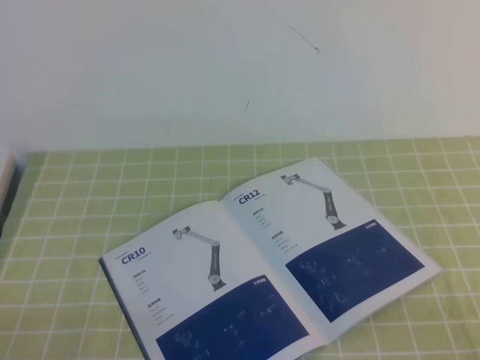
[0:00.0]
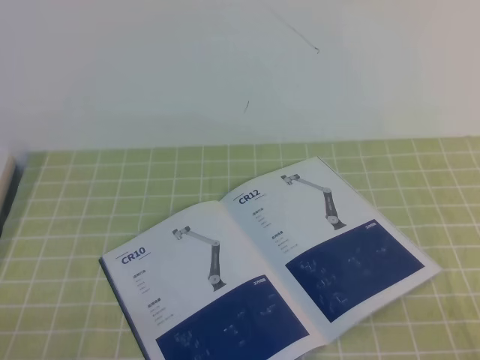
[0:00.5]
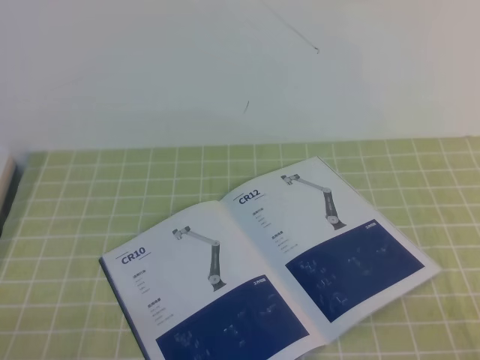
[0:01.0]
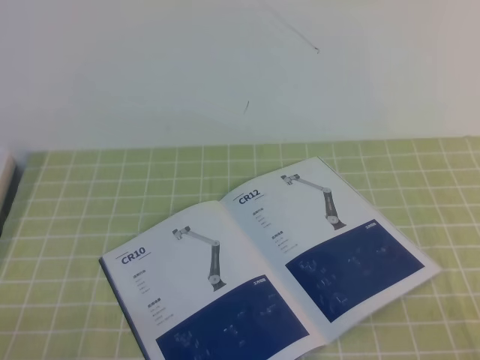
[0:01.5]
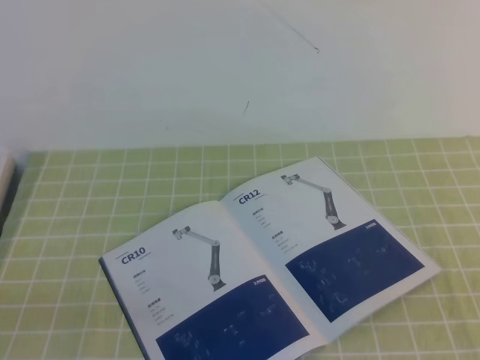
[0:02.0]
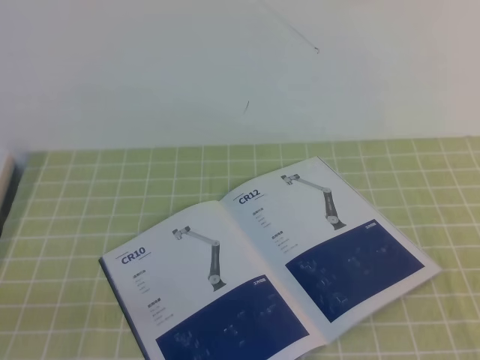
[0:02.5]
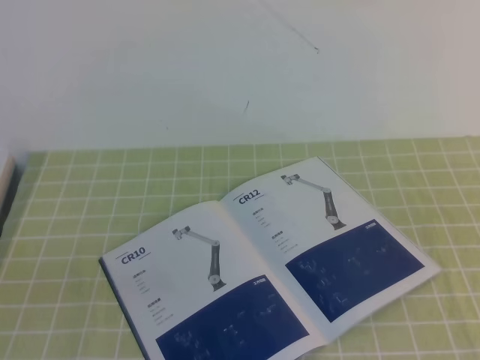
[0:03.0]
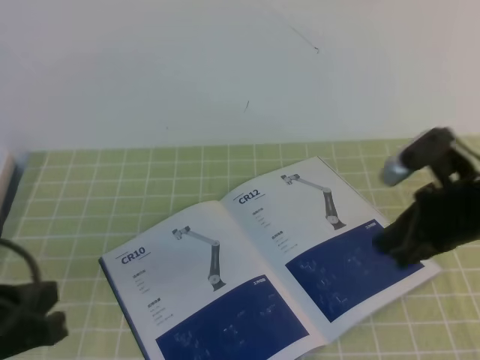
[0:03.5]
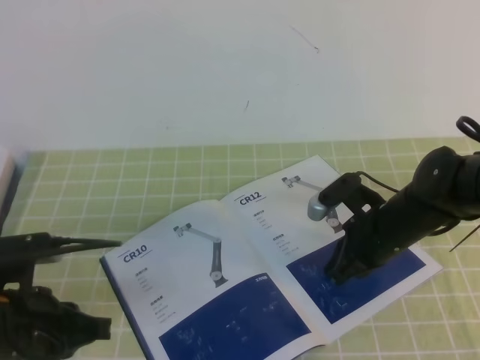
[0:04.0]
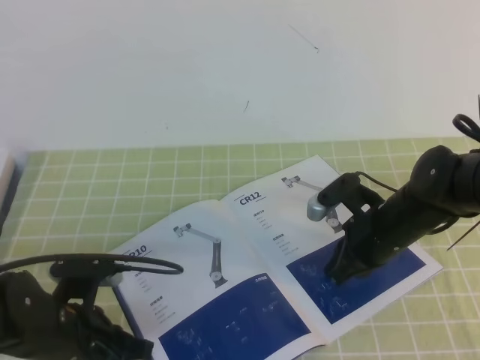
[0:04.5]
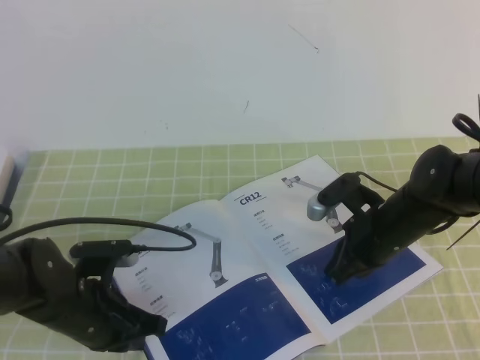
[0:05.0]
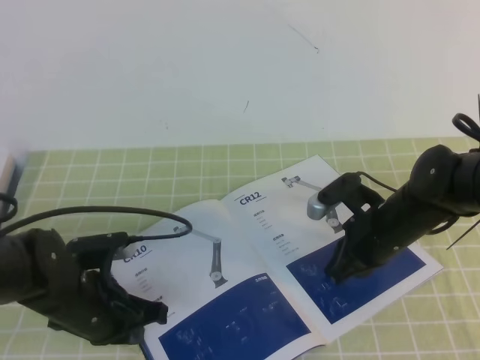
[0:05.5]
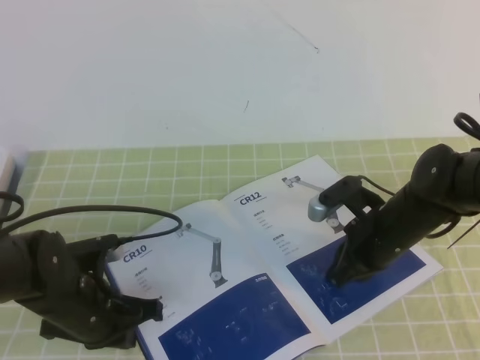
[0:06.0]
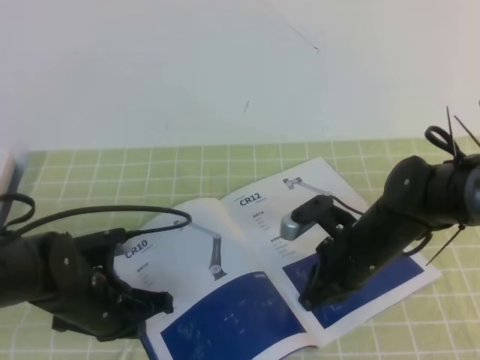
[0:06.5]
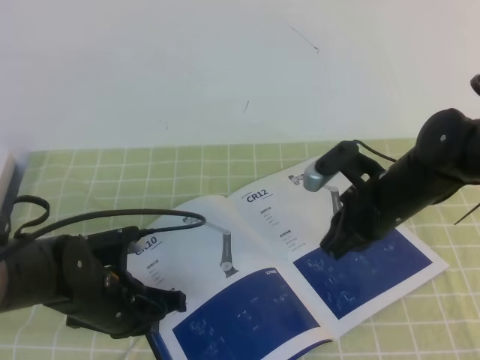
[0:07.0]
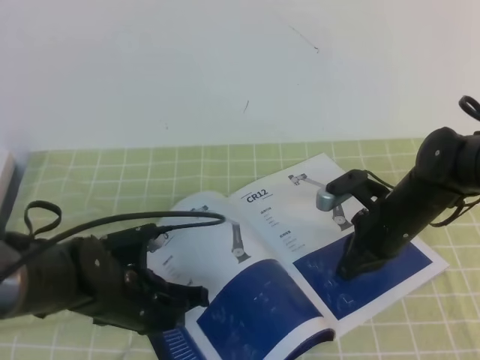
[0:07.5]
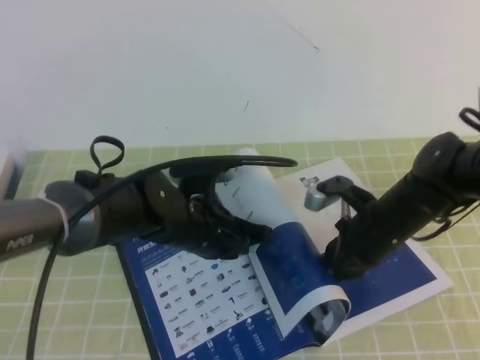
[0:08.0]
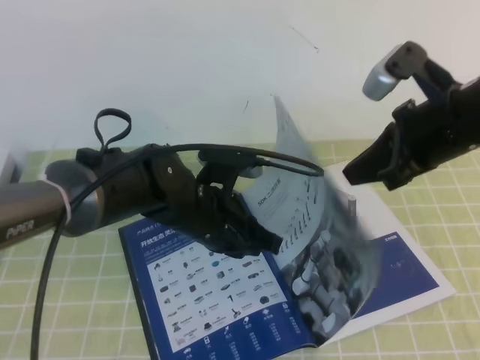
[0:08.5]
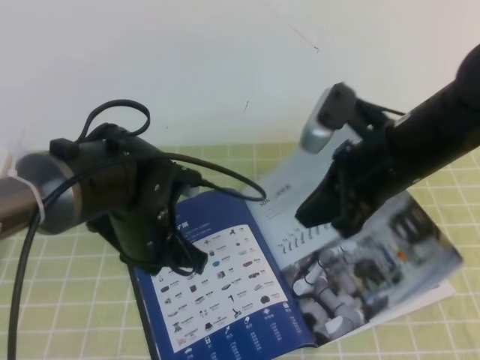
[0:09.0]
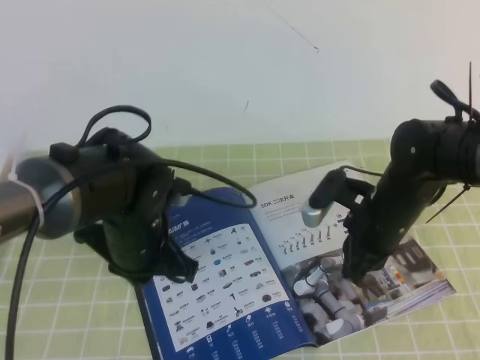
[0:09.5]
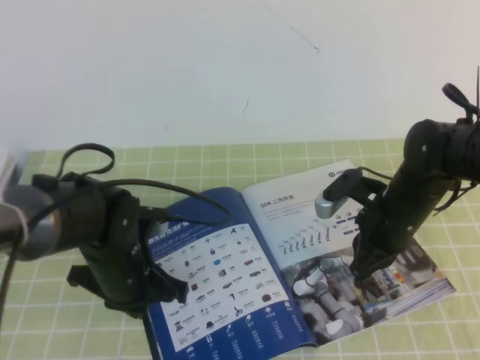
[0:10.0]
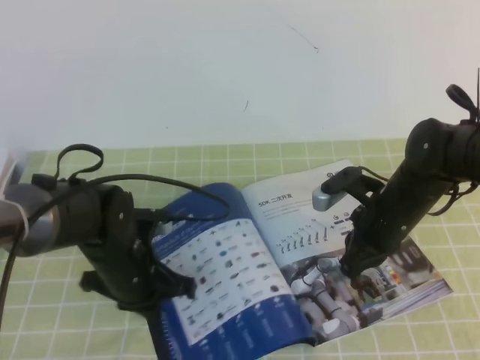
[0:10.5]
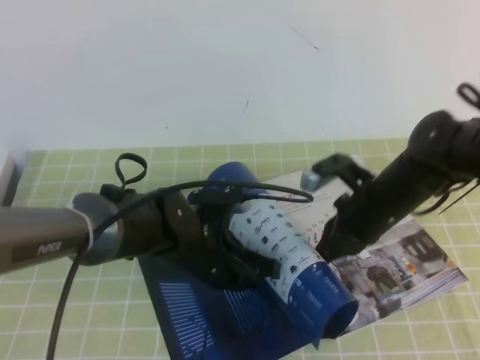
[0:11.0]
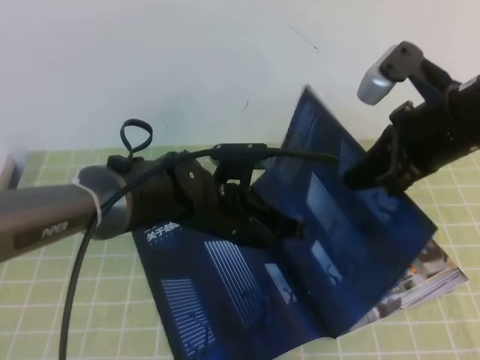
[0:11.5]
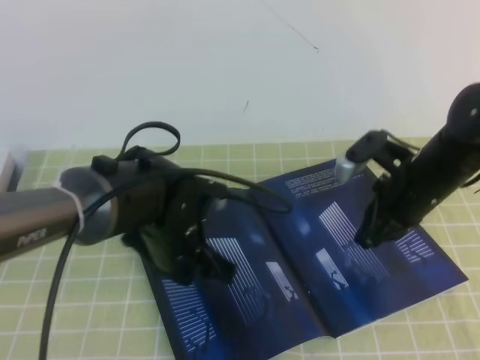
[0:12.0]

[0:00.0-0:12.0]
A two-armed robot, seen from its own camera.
Task of the whole recording: on the green tablecloth, hold the book with one hand and close it with the other.
0:02.0 to 0:04.0: The left gripper heads forward, covering some 15 cm; the right gripper moves forward and to the left, some 35 cm.
0:04.0 to 0:06.0: The left gripper heads downward and forward, covering some 10 cm.
0:06.0 to 0:08.0: The left gripper heads to the right, covering approximately 10 cm.
0:08.0 to 0:10.0: The left gripper travels to the left by about 10 cm. The right gripper reaches approximately 15 cm upward, then returns.
0:10.0 to 0:12.0: The right gripper moves upward, roughly 5 cm. The left gripper is displaced to the right by approximately 10 cm.

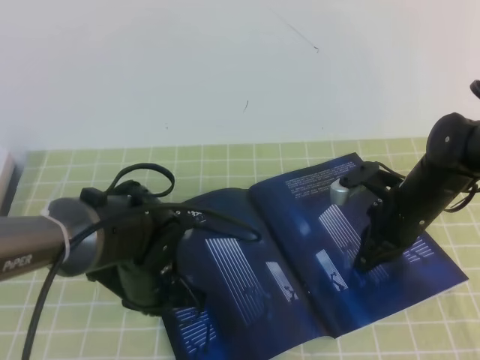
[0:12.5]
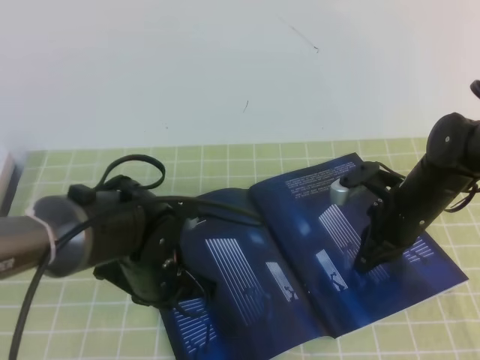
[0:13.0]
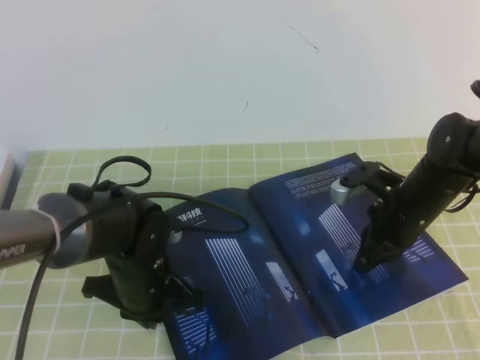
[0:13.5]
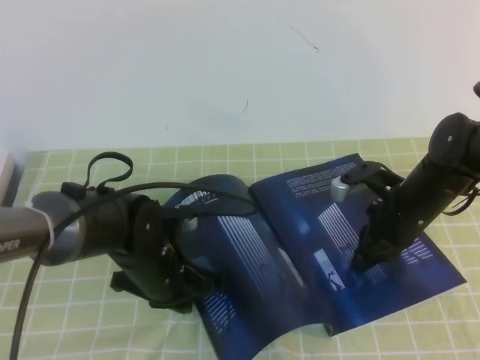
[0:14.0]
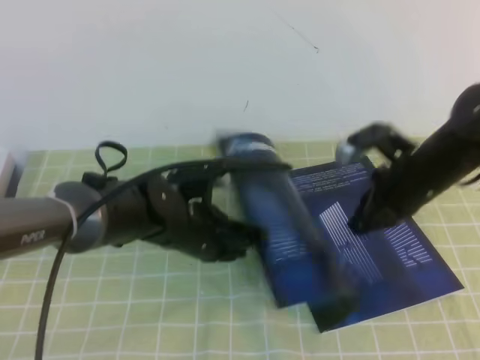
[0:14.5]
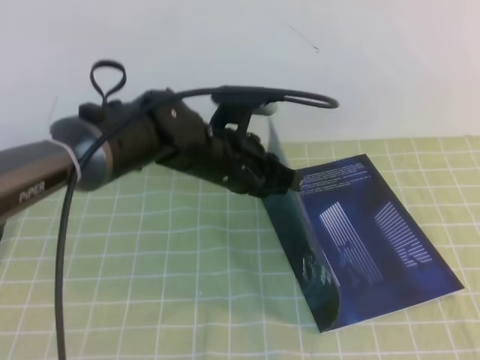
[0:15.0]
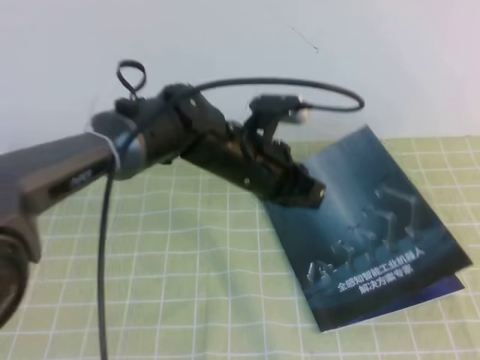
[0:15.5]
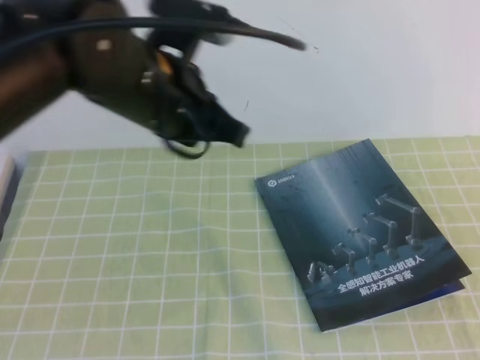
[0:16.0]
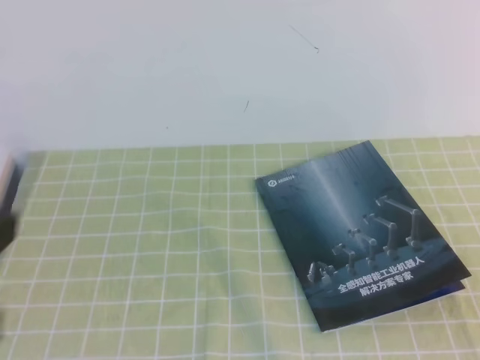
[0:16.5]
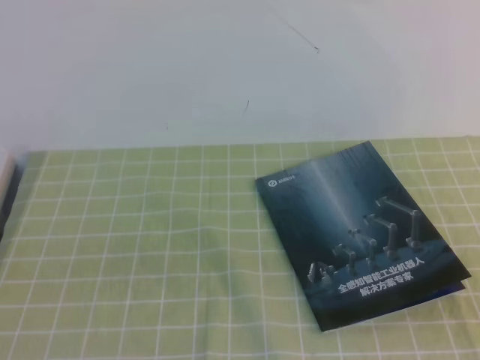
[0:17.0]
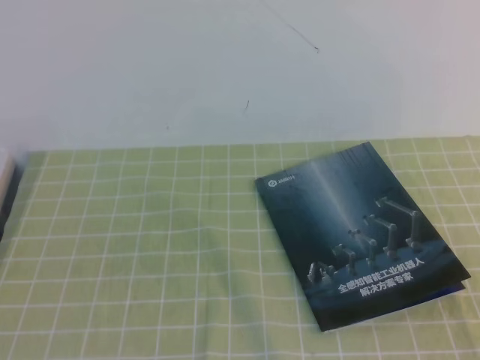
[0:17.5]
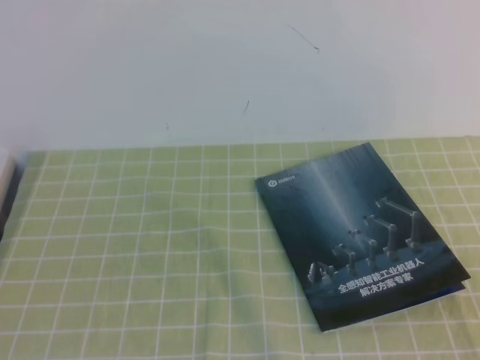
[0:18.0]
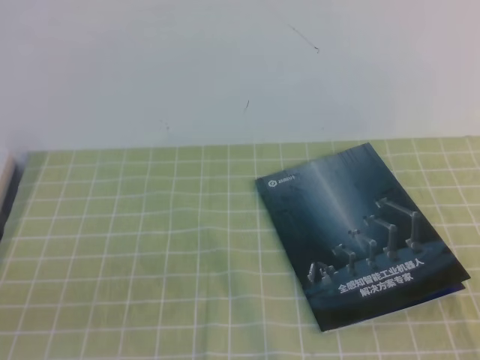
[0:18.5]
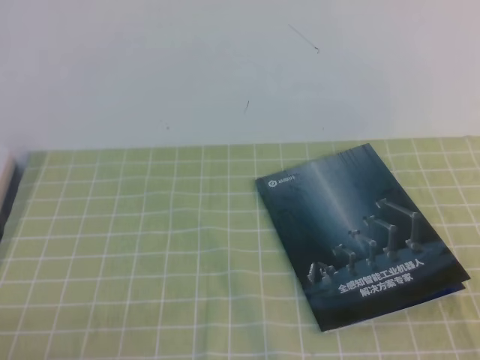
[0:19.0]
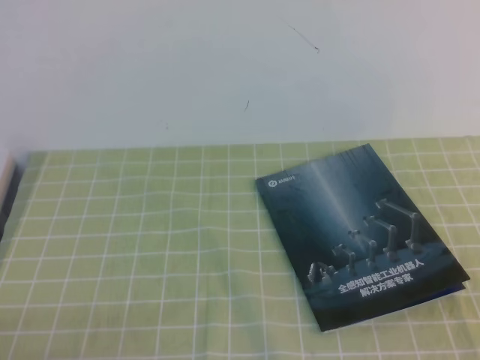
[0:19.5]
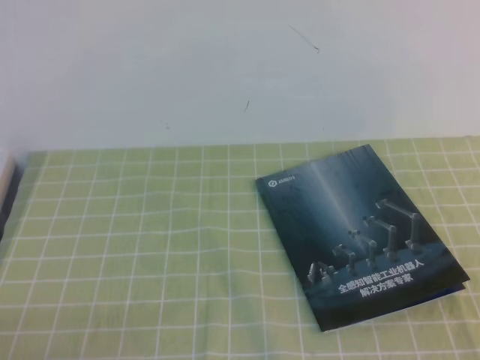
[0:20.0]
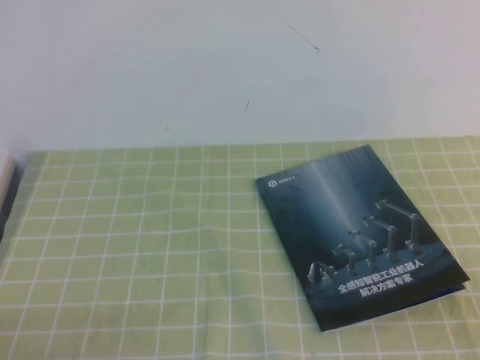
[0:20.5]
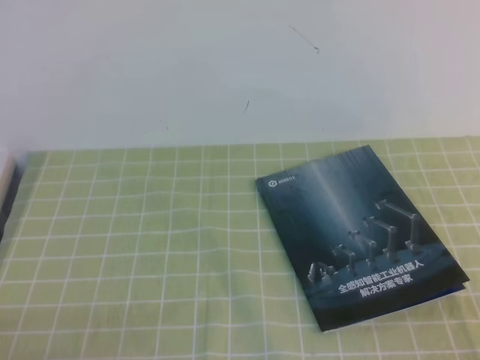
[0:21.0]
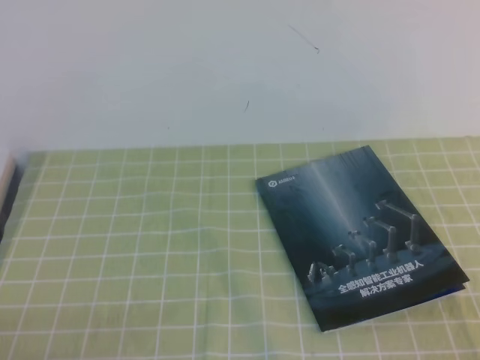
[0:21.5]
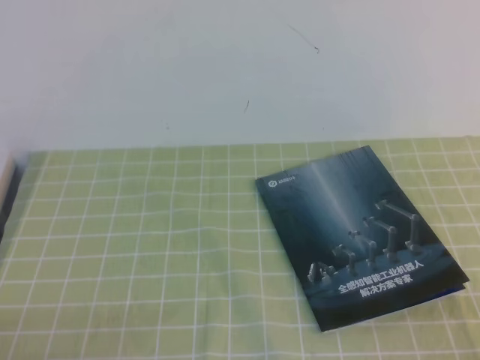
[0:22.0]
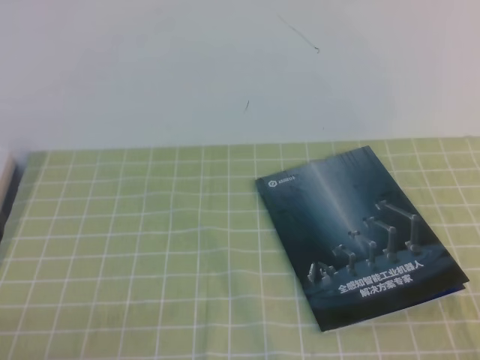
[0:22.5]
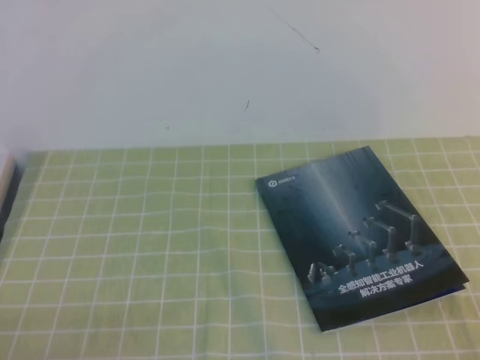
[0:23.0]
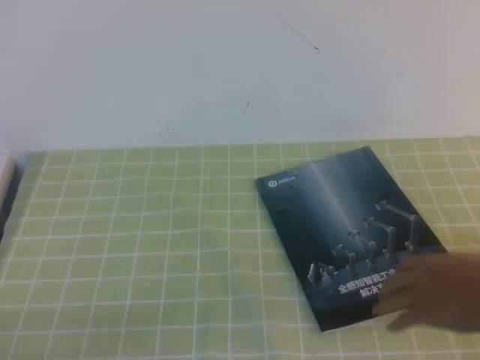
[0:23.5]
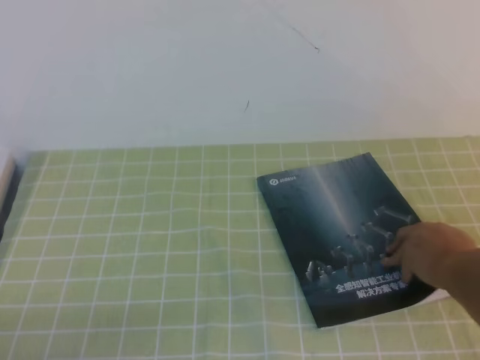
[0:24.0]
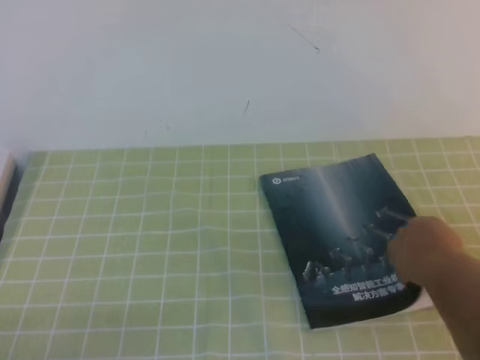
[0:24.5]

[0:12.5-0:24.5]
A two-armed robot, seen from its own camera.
Task of the whole recording: on the green tablecloth, hold the book with one hand and close it with the other.
Step, 0:12.5 to 0:24.5: Close the open book.
0:12.5 to 0:14.5: The right gripper travels upward by roughly 5 cm; the left gripper changes place by roughly 5 cm.
0:14.5 to 0:16.5: The right gripper moves backward, some 35 cm, while the left gripper goes about 35 cm upward, backward and to the left.
0:16.5 to 0:18.5: The left gripper travels downward by some 15 cm.
0:22.5 to 0:24.5: Neither gripper changes place.
